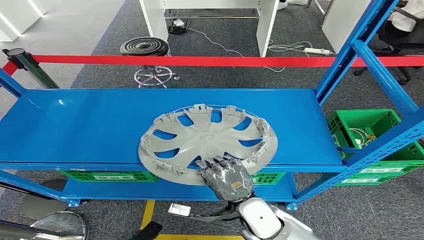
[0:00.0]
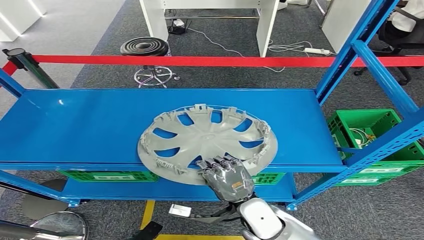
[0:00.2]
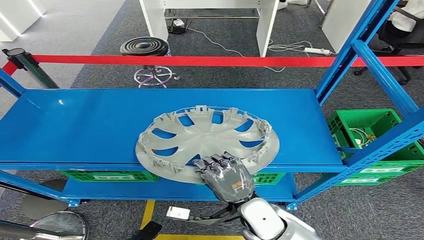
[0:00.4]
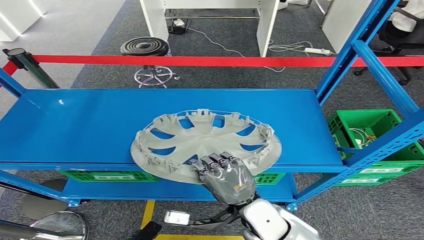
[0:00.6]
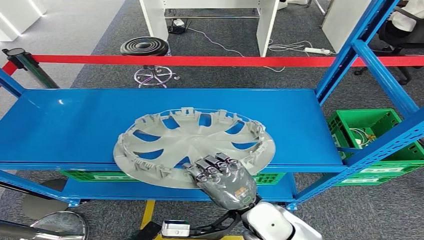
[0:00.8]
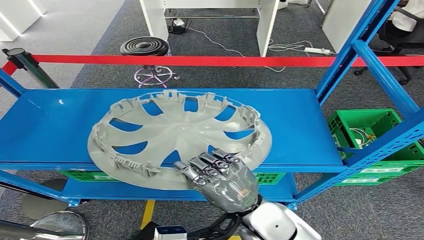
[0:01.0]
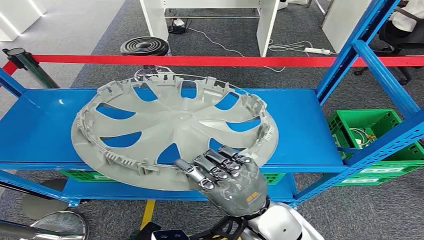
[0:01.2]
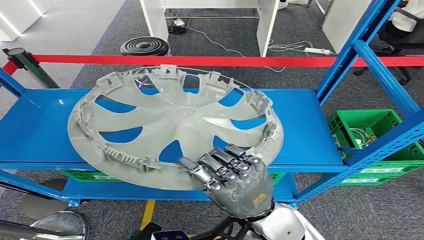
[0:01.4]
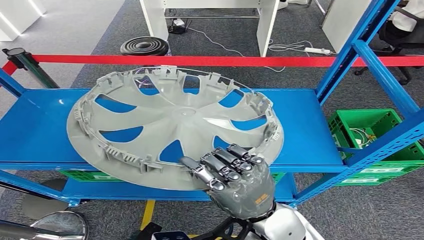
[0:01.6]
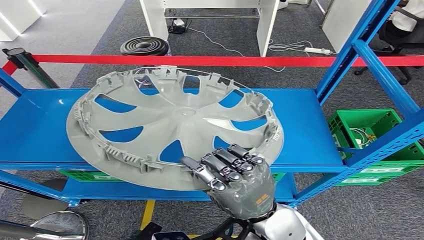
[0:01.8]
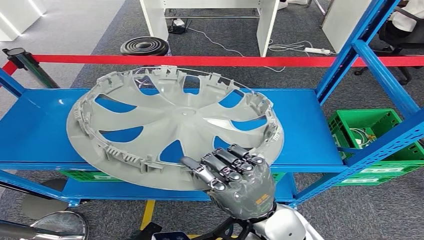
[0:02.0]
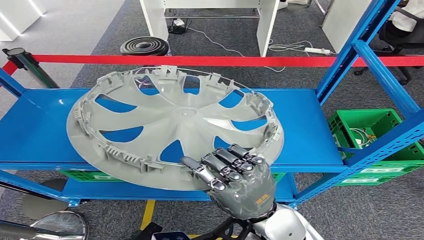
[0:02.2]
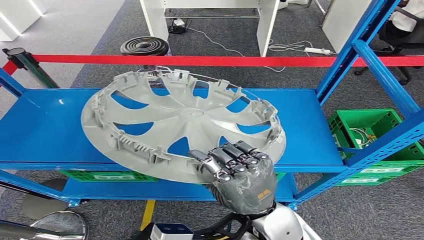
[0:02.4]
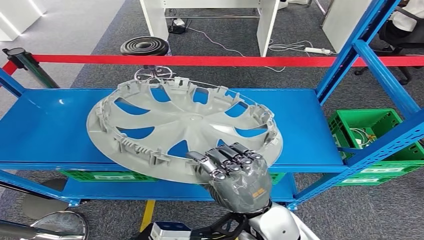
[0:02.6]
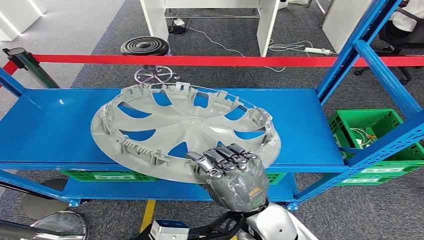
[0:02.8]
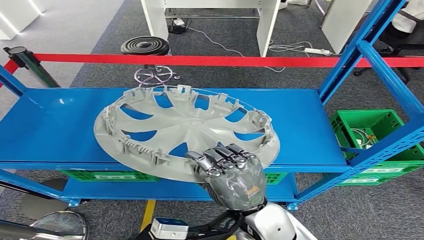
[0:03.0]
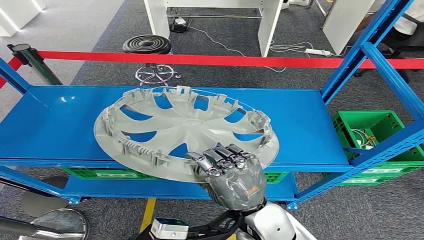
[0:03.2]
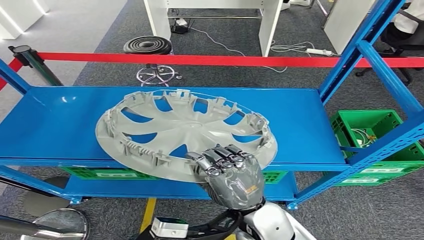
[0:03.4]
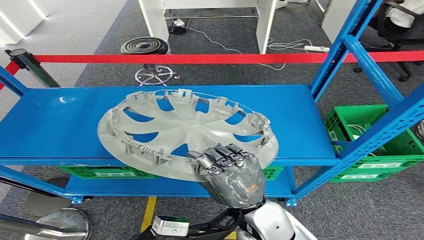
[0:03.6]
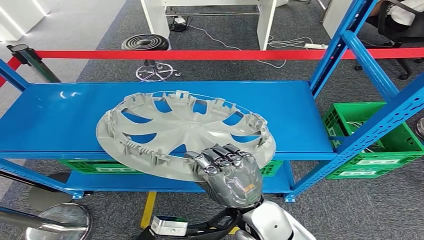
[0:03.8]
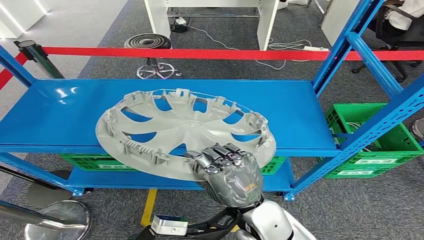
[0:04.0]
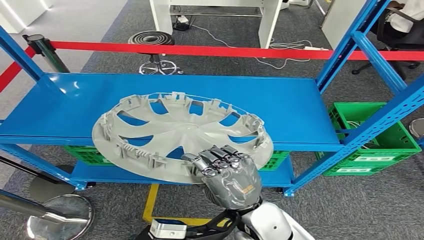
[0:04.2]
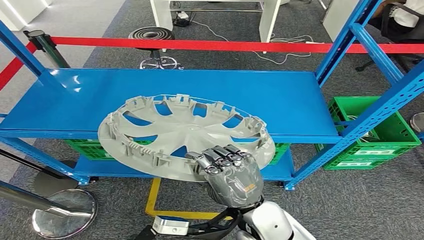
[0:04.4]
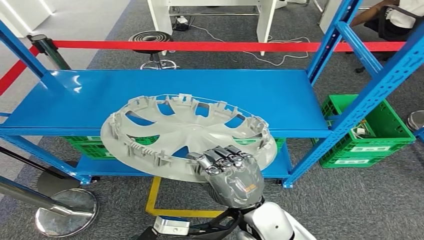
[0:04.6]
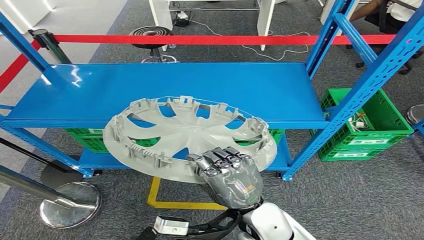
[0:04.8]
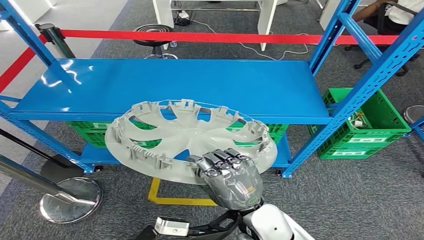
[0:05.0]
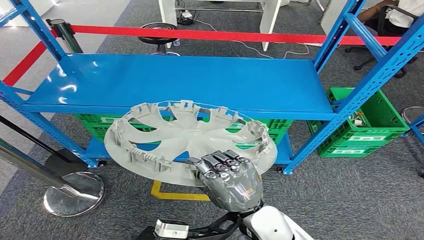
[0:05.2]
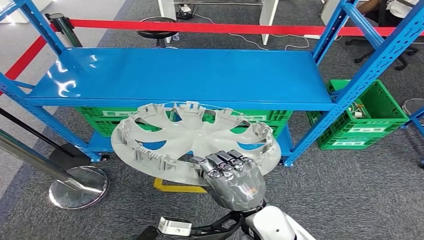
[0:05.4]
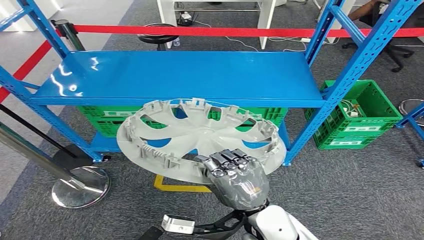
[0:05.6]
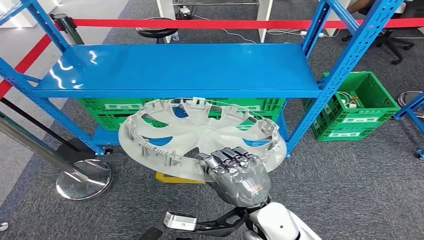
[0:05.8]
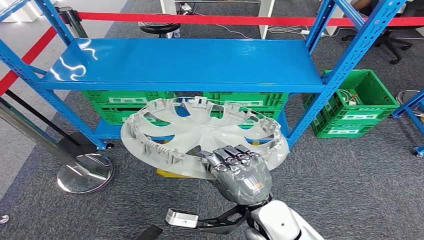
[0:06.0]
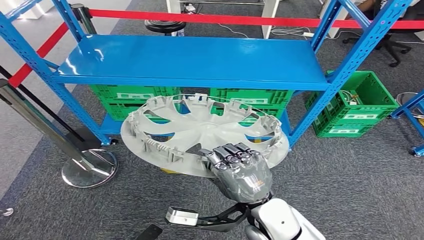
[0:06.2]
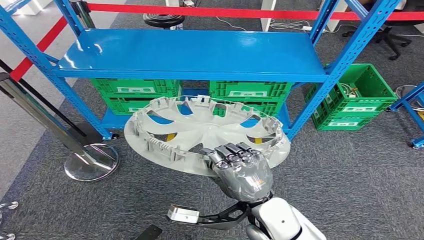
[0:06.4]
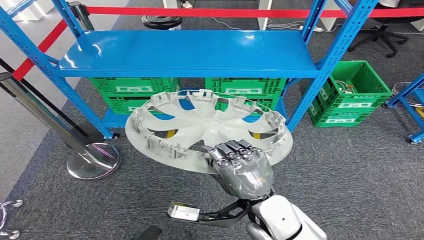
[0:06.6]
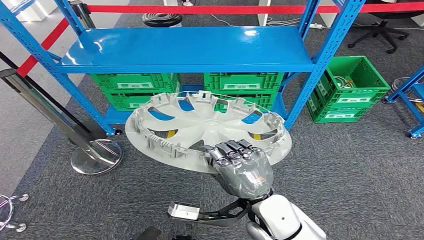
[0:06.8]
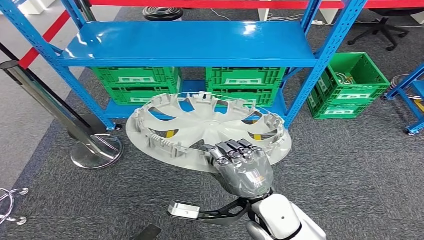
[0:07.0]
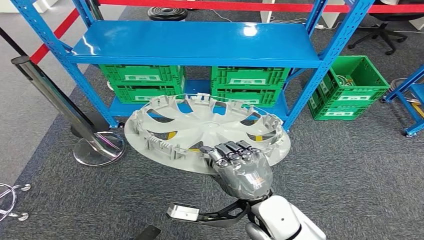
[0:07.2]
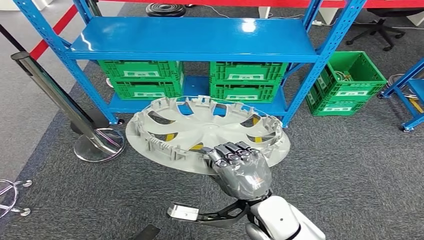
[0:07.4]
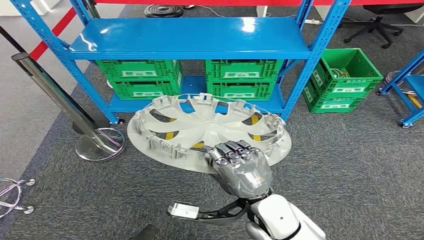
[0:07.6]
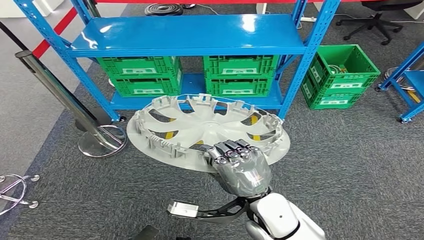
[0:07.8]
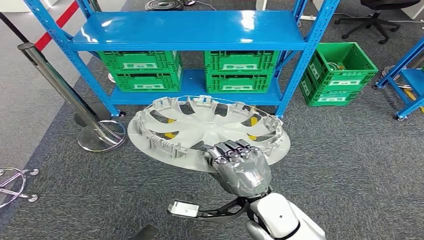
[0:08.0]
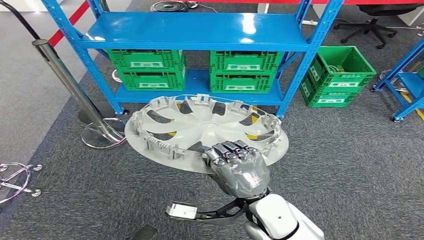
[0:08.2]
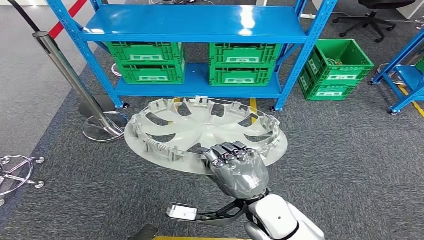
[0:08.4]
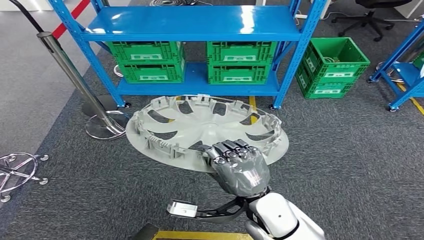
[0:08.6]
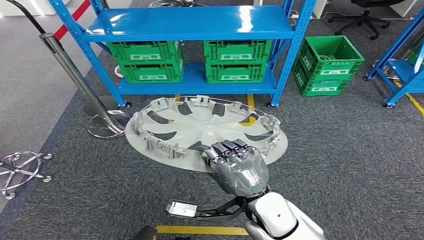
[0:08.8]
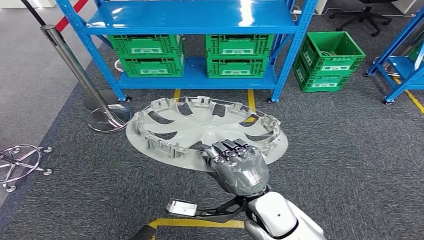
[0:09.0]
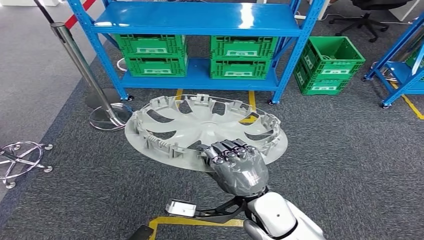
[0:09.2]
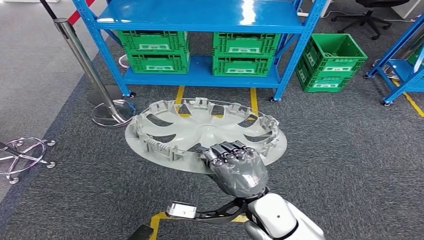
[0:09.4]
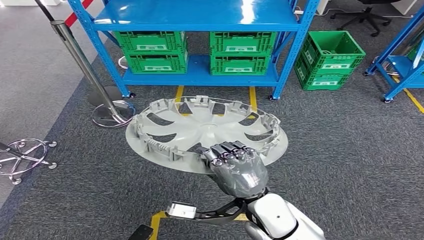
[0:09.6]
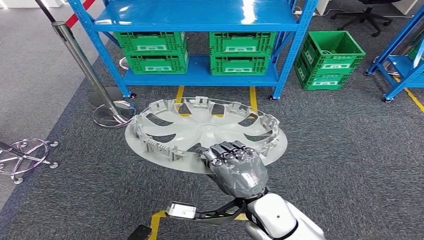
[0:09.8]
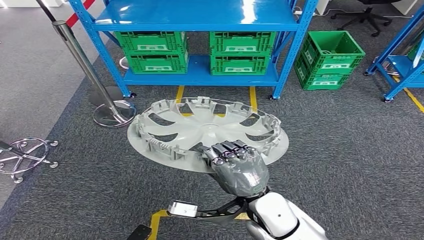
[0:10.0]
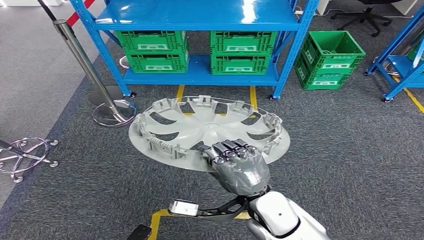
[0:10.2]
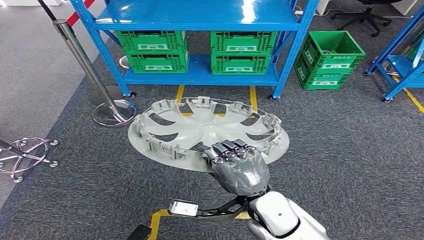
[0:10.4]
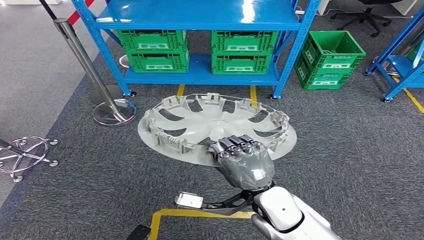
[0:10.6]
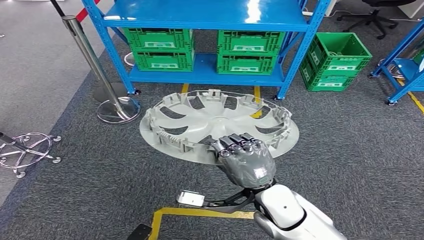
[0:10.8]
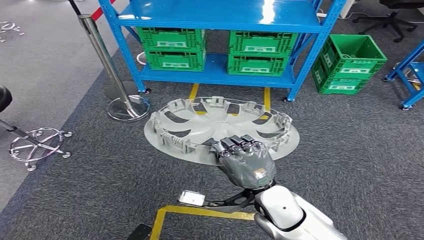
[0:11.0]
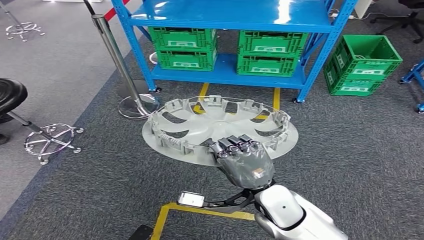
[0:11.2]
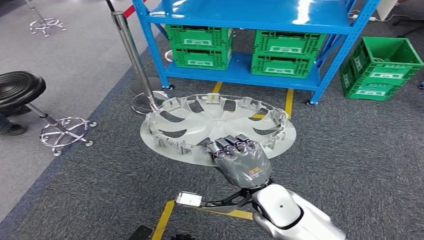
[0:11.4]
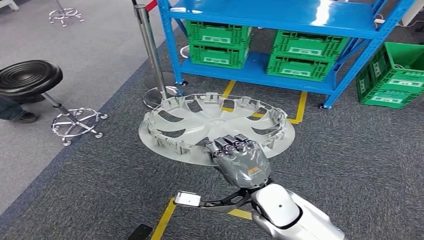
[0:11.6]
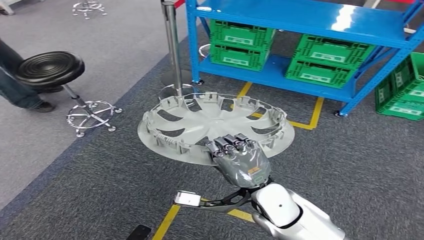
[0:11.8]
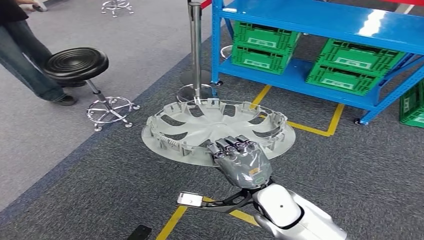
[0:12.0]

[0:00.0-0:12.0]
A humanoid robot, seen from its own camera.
Step, 0:00.0 to 0:01.6: Pick up the small component from the shelf.
0:09.0 to 0:10.4: The hands move only a little.

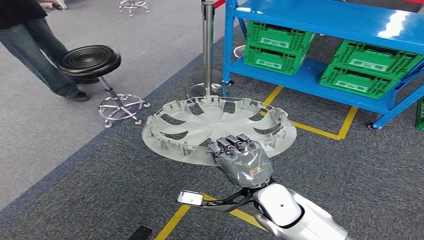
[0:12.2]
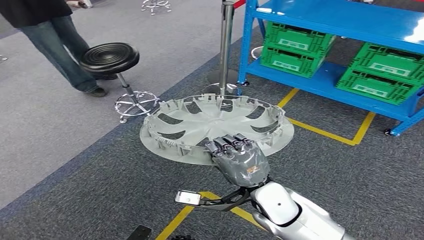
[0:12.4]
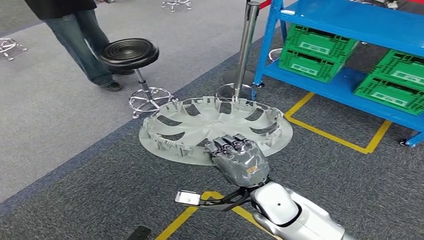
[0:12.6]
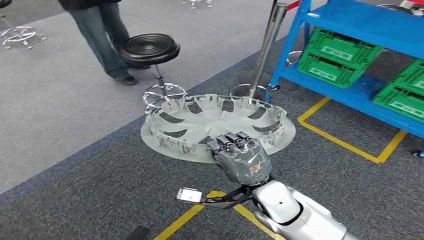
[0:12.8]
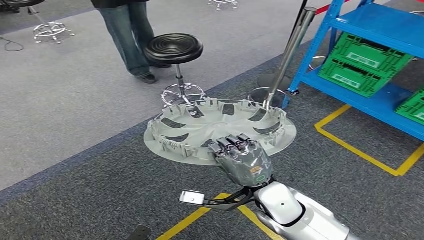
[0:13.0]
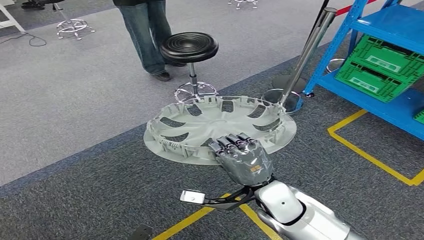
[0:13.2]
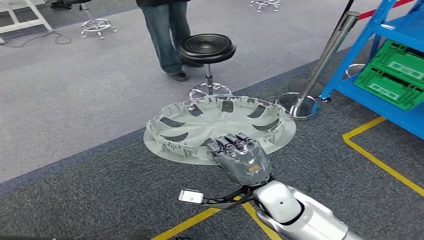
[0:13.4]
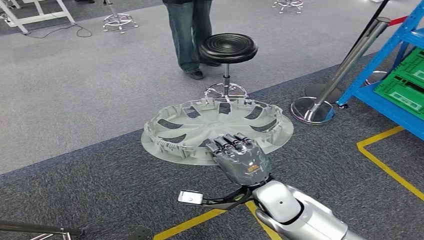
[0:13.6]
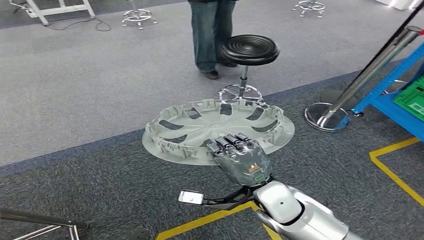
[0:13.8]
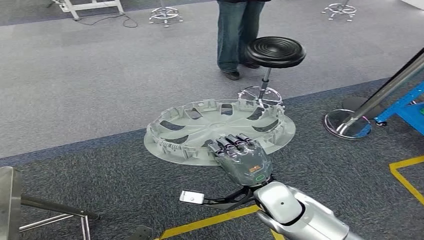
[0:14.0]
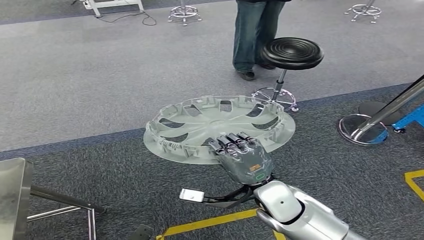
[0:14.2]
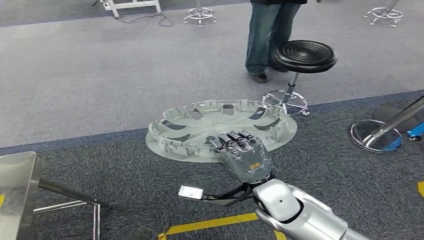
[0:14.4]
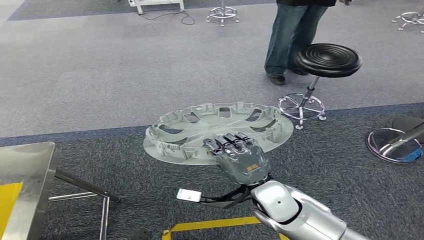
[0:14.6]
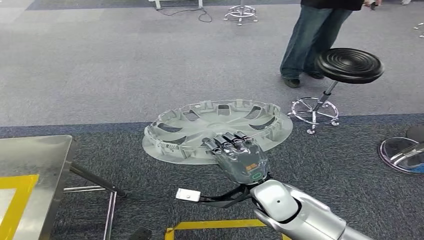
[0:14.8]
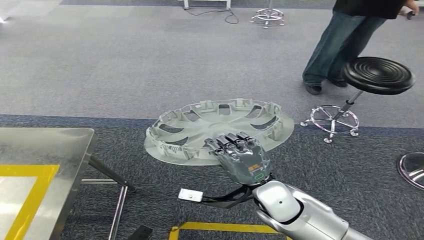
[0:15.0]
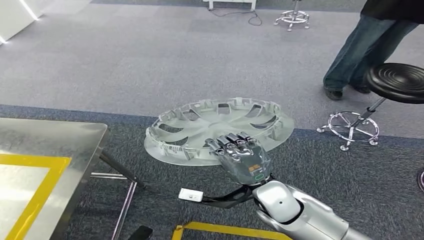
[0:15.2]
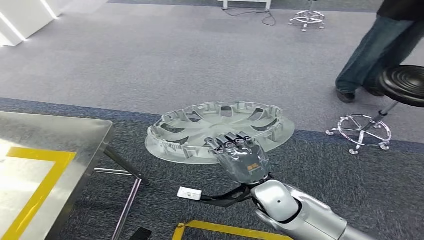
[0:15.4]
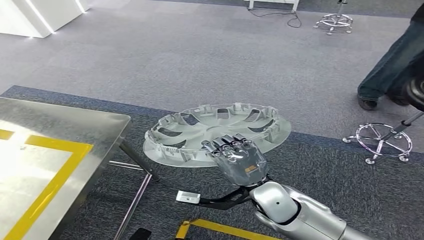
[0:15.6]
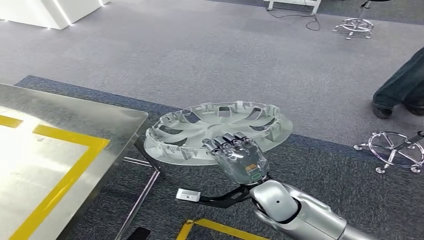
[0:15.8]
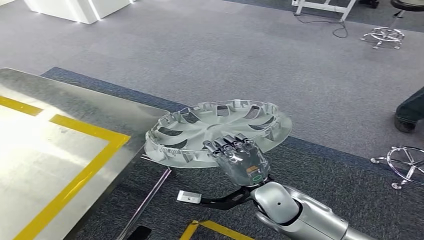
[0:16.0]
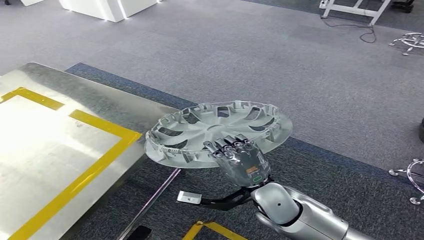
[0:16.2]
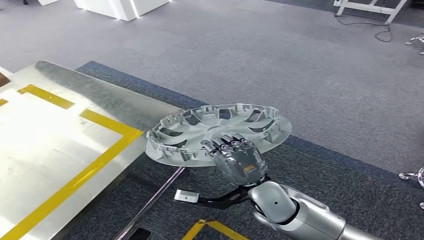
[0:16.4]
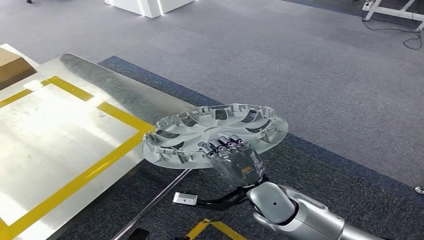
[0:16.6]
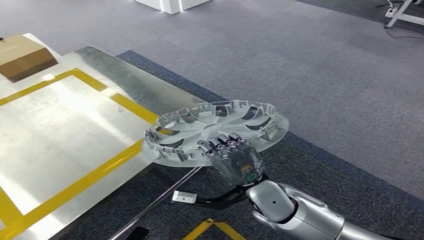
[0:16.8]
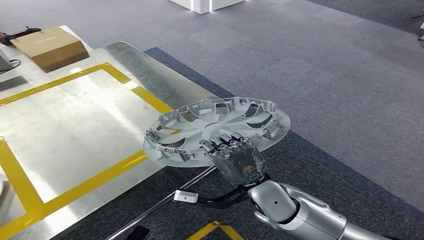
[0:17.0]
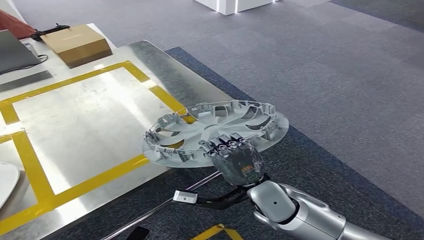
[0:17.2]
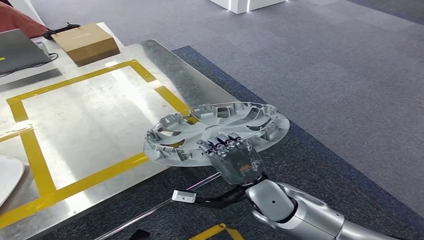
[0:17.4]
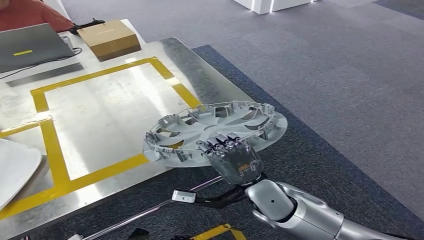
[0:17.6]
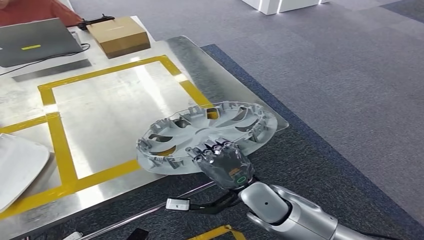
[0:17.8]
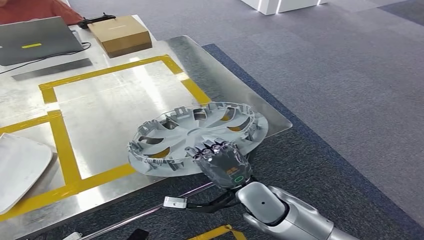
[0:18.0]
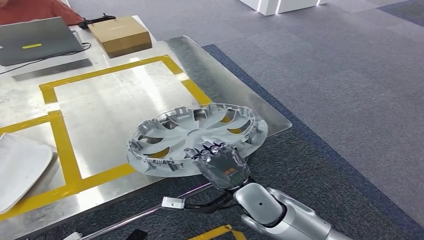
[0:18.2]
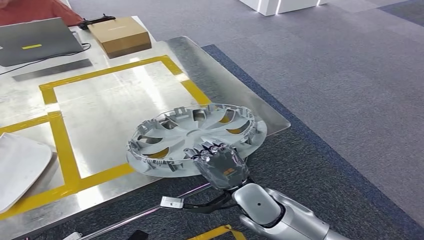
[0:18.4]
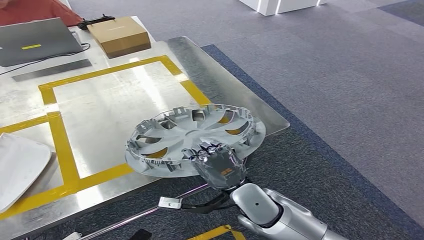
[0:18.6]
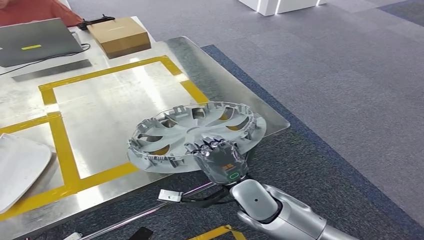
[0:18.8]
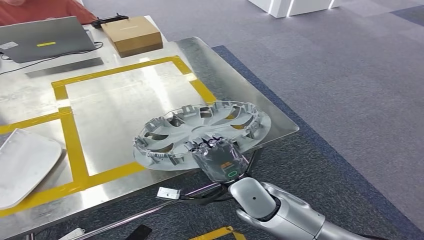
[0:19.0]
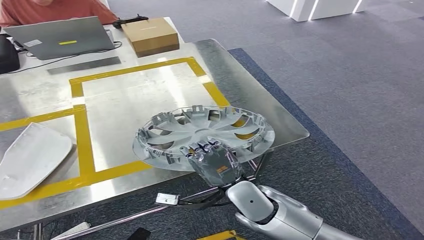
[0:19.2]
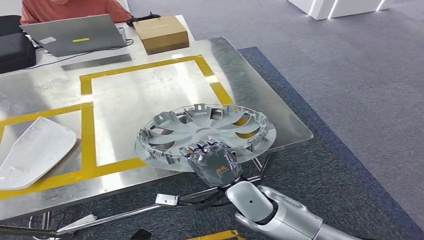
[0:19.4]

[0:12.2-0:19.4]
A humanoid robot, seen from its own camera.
Step, 0:12.2 to 0:18.0: Move the small component to the workbench.
